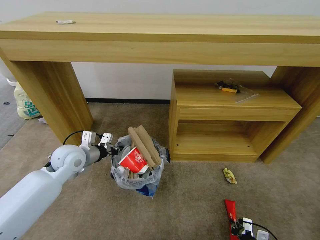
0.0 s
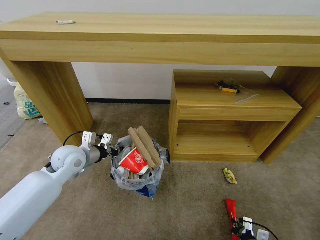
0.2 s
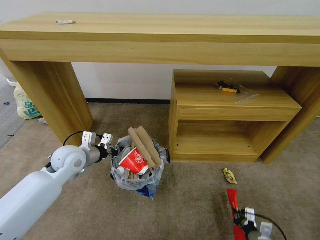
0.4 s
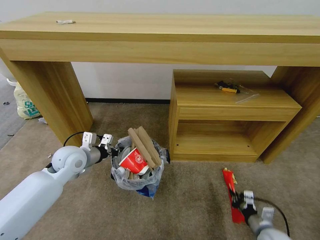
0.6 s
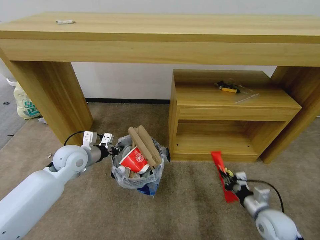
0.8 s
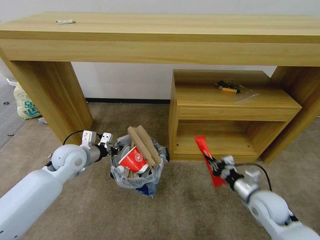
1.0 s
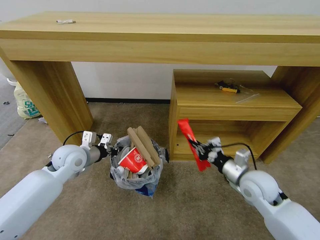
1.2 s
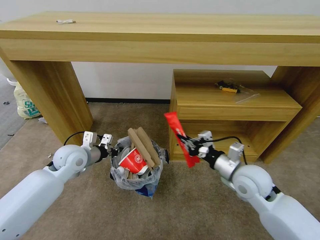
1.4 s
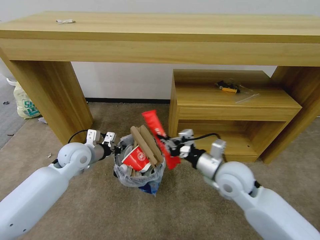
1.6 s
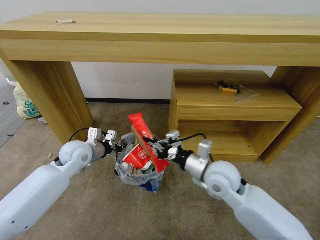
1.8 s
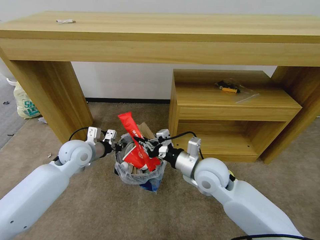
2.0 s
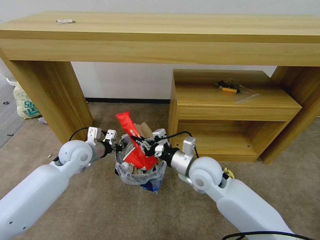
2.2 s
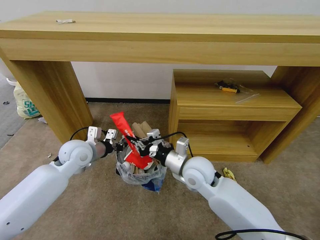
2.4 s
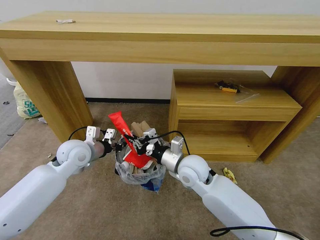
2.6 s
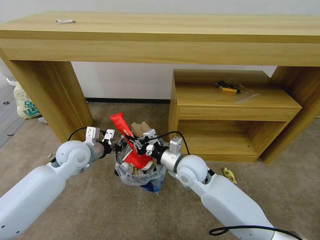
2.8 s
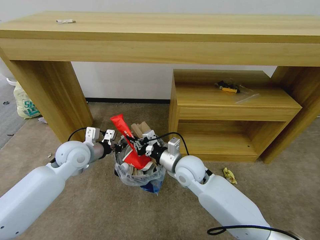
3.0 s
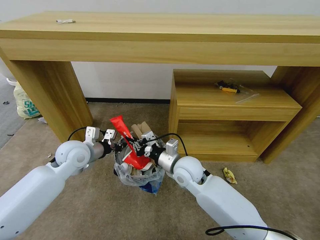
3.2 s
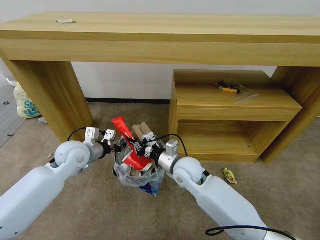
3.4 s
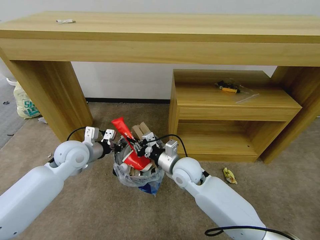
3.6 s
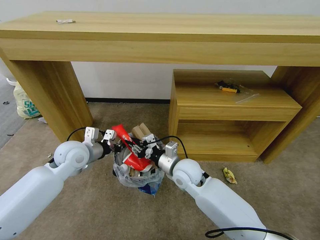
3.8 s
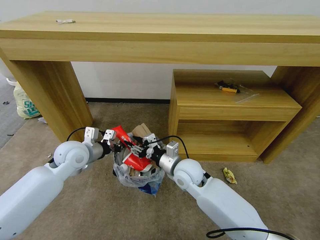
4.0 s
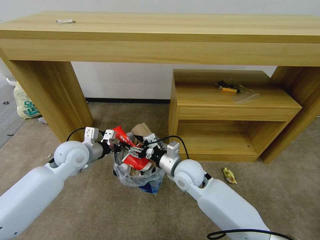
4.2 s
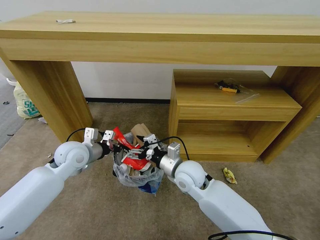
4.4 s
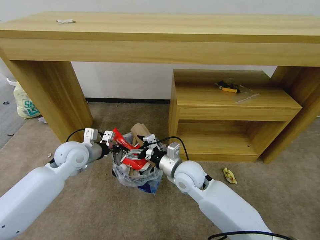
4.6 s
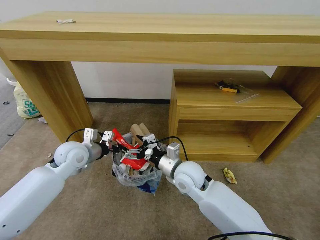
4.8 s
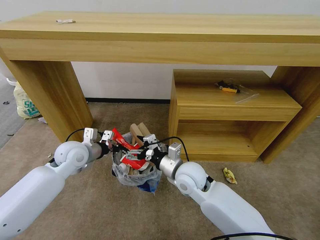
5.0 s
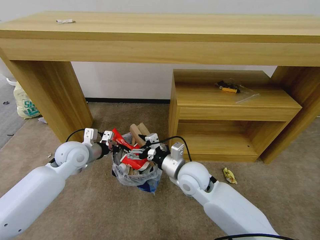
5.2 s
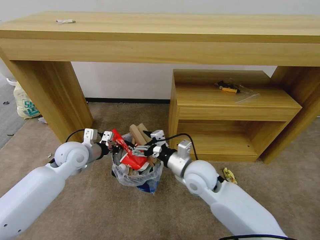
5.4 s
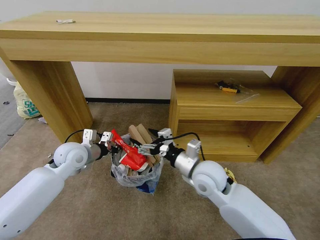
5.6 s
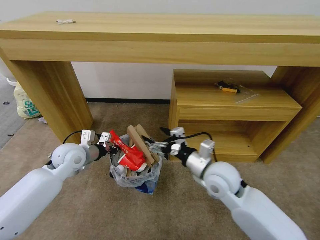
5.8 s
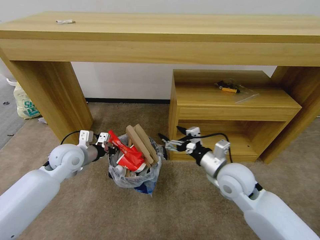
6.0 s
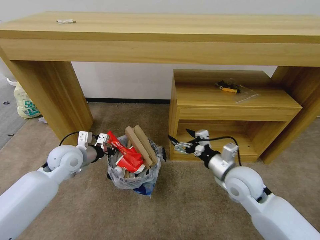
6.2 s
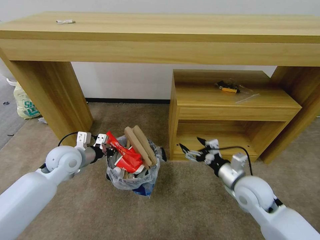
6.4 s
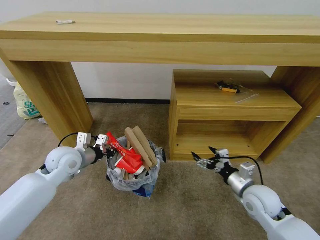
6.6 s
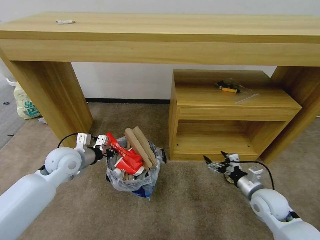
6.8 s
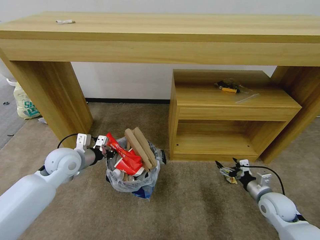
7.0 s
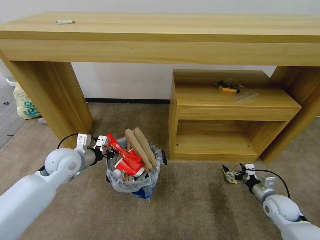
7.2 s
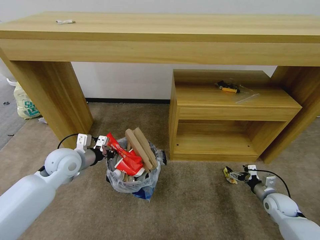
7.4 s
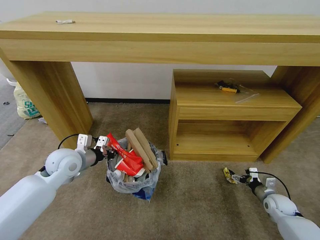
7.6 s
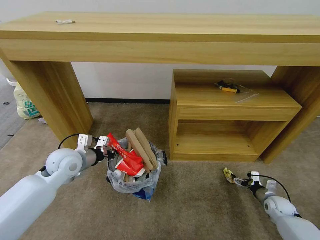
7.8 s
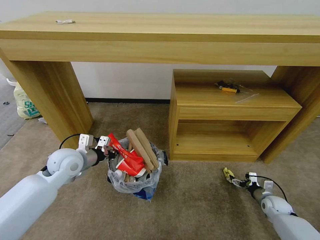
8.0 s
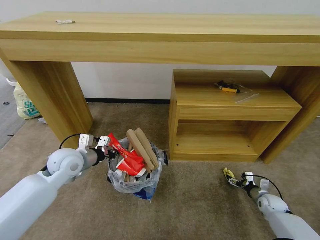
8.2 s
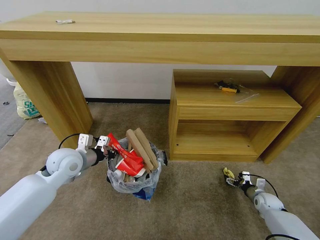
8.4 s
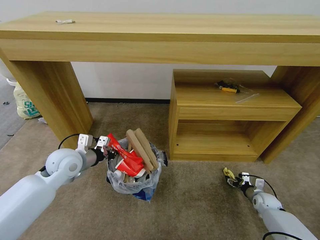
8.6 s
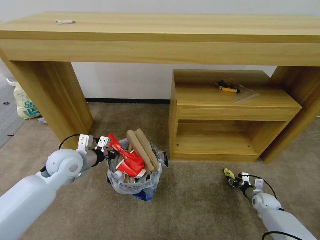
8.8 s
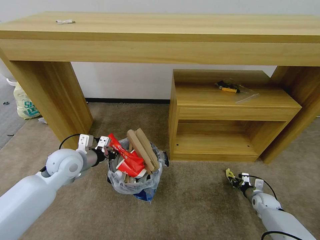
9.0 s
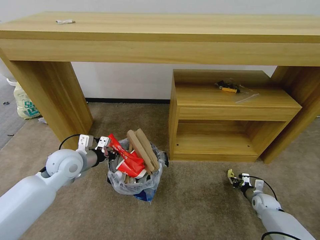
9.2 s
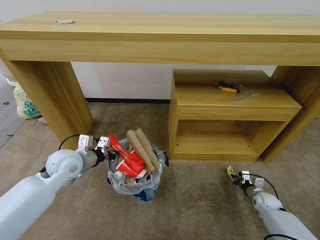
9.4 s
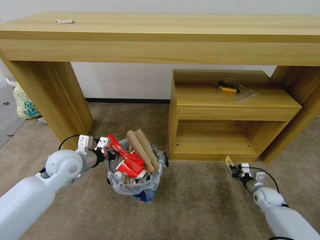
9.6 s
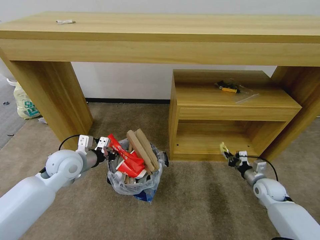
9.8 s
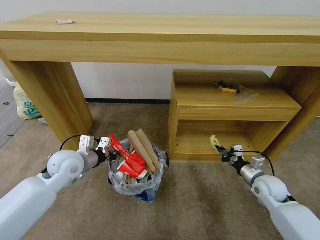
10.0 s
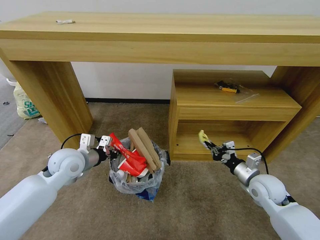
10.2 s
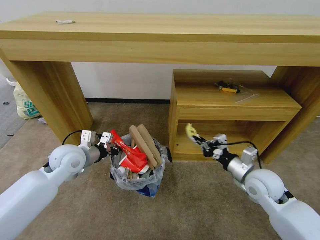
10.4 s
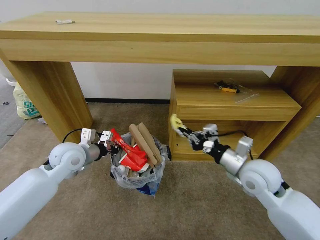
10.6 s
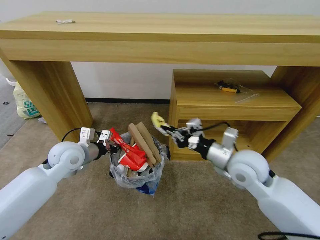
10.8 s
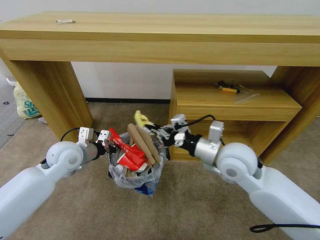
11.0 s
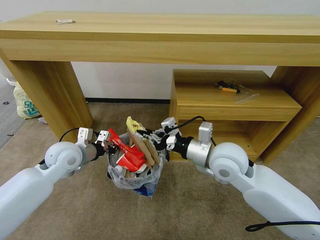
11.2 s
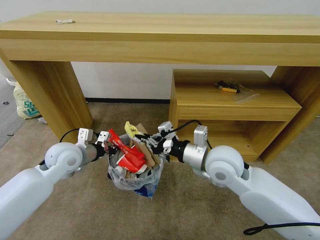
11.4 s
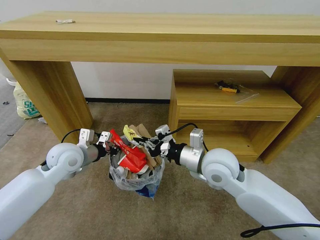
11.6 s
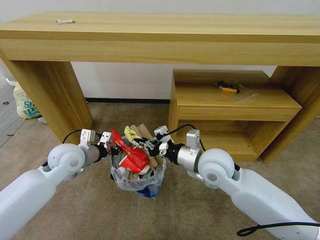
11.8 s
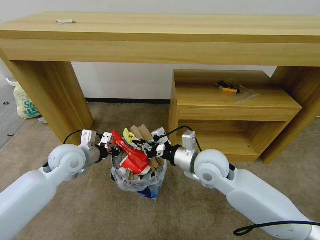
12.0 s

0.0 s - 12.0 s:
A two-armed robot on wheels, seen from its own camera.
Task of the whole recording: Pick up the trash bin and place the garbage on the floor into it.
0.0 s - 1.6 s: The right gripper heads upward, forward and to the left, covering about 40 cm.
1.6 s - 3.0 s: The right gripper moves to the left and forward, roughly 10 cm.
3.0 s - 4.4 s: The right gripper opens its fingers.
4.4 s - 6.0 s: The right gripper shifts some 10 cm to the right.
6.0 s - 7.6 s: The right gripper moves to the right and downward, about 35 cm.
7.6 s - 9.0 s: The right gripper is displaced downward by roughly 5 cm, and closes.
9.0 s - 10.4 s: The right gripper travels upward and to the left by about 30 cm.
10.4 s - 12.0 s: The right gripper travels to the left by about 15 cm.

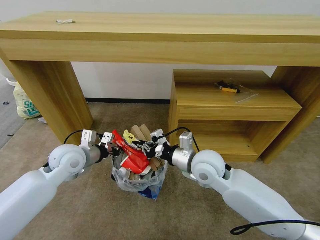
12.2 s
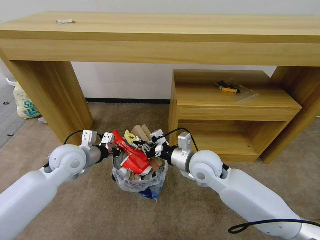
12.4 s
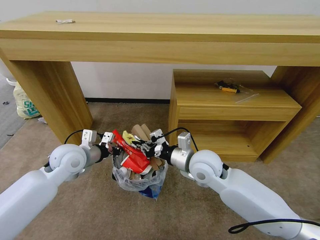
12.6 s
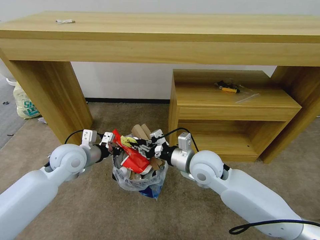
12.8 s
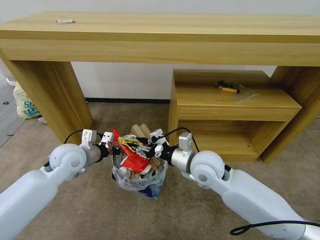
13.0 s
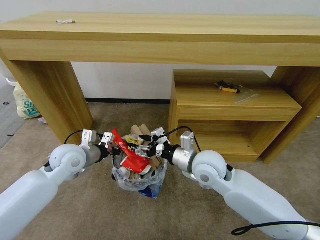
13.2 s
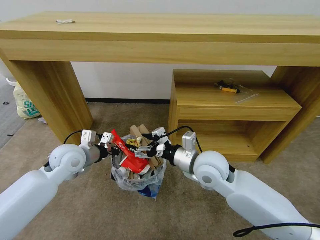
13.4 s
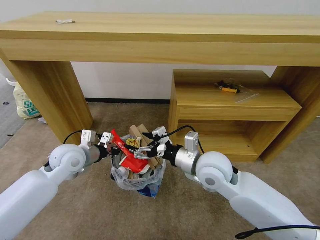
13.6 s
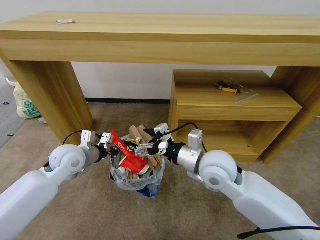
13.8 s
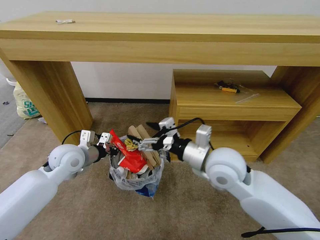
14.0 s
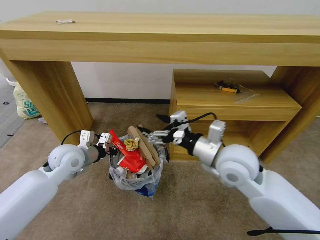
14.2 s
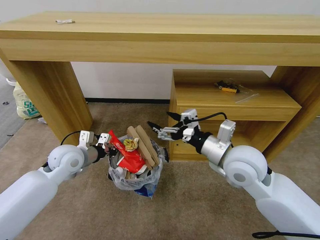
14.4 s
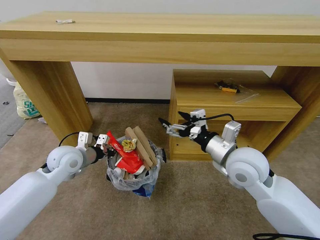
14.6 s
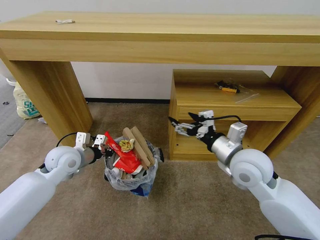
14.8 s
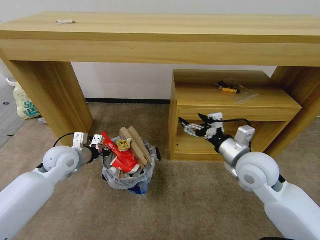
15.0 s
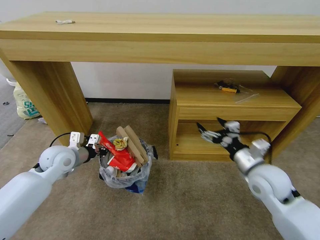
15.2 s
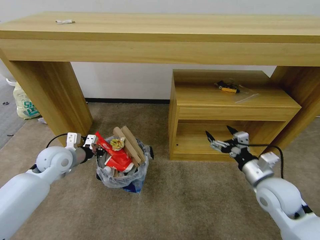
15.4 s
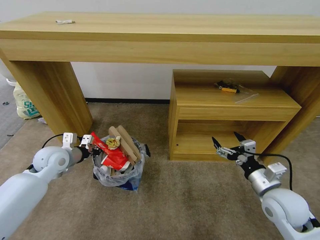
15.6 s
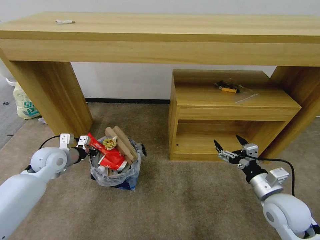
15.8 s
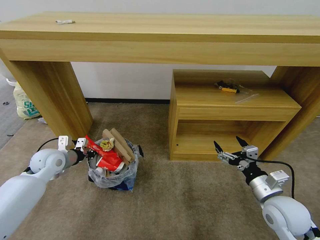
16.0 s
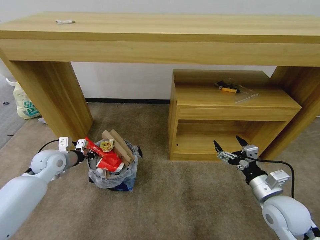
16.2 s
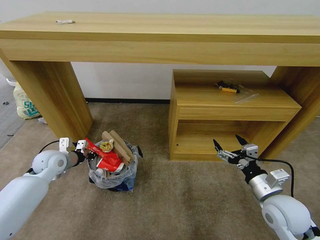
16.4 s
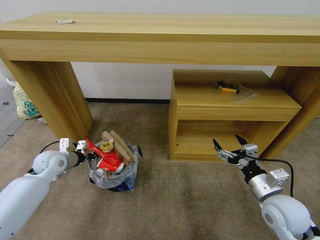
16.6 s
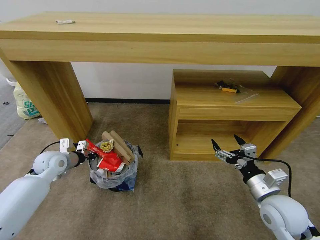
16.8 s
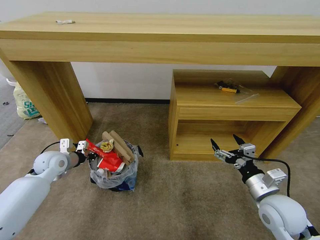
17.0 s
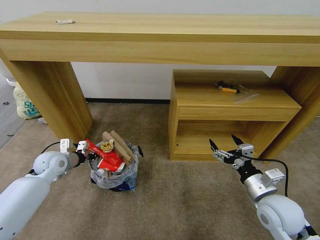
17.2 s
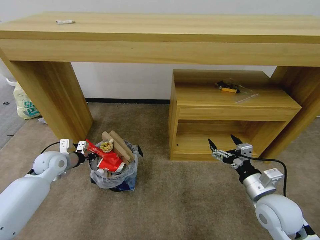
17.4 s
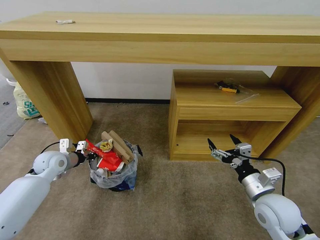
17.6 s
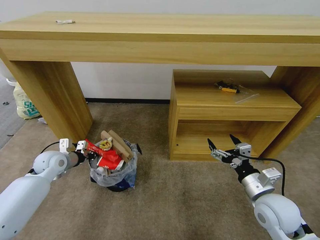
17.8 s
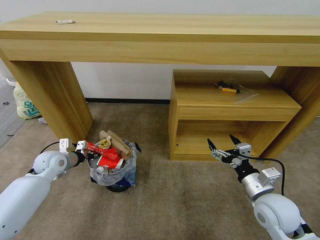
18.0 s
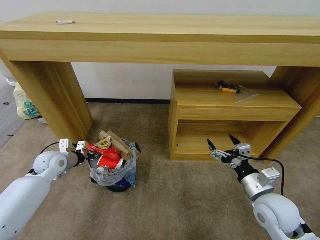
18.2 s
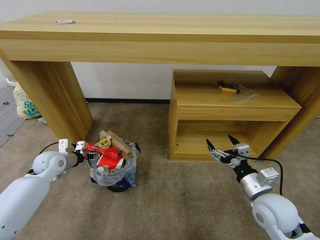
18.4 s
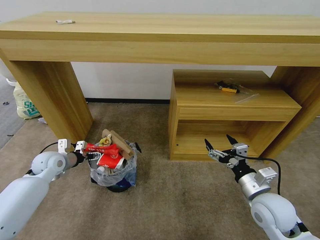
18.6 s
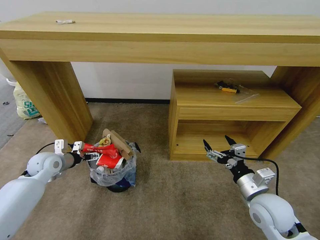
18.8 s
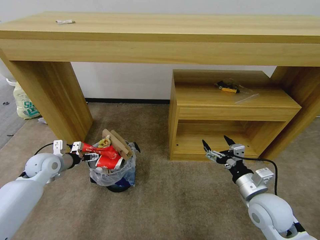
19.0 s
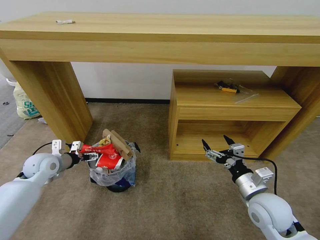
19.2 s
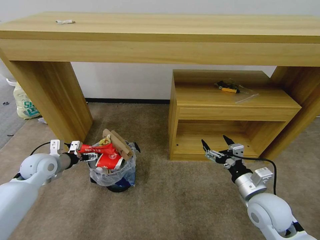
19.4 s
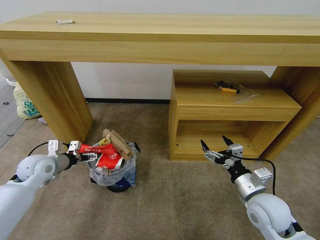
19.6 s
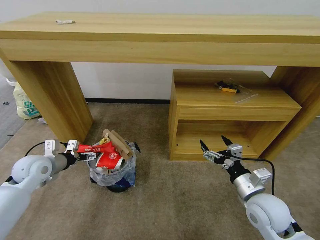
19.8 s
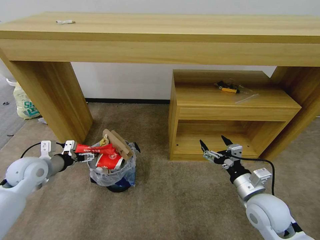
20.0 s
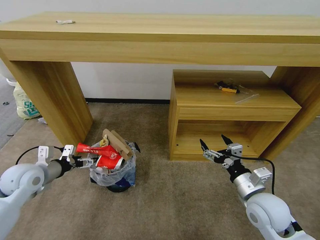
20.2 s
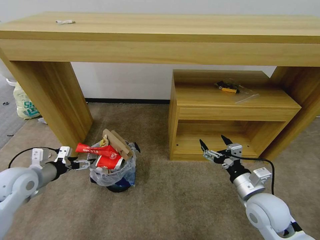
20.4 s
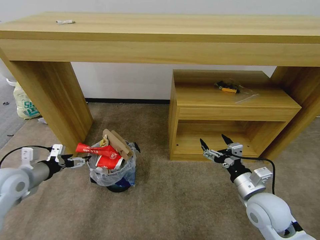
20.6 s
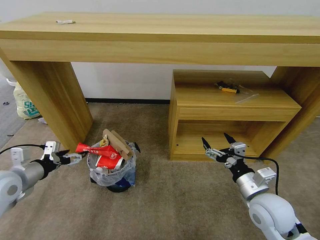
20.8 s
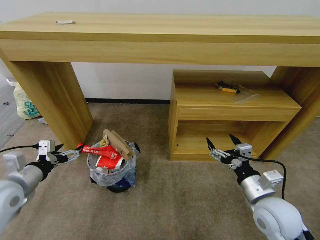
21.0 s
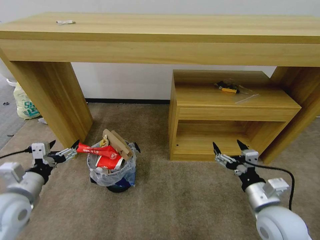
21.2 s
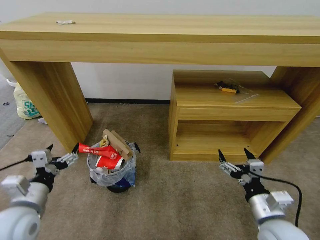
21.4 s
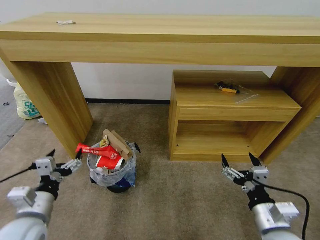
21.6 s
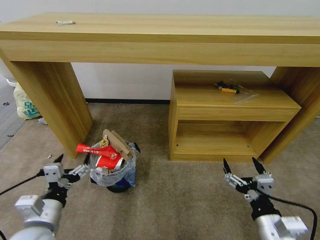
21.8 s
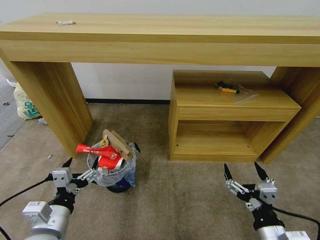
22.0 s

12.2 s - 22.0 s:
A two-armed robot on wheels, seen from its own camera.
Task of the whole recording: Pick up the trash bin and place the garbage on the floor into it.
12.2 s - 13.6 s: The right gripper opens its fingers.
13.6 s - 15.0 s: The right gripper is displaced to the right by approximately 10 cm.
15.0 s - 16.4 s: The left gripper is displaced to the left by approximately 5 cm. The right gripper travels downward, backward and to the right by some 15 cm.
16.4 s - 17.8 s: There are only small adjustments of the grippers.
17.8 s - 19.2 s: The left gripper opens.
19.2 s - 20.6 s: The left gripper is displaced backward and upward by approximately 10 cm.
20.6 s - 22.0 s: The left gripper moves backward and to the right, approximately 20 cm; the right gripper is displaced backward by roughly 15 cm.
